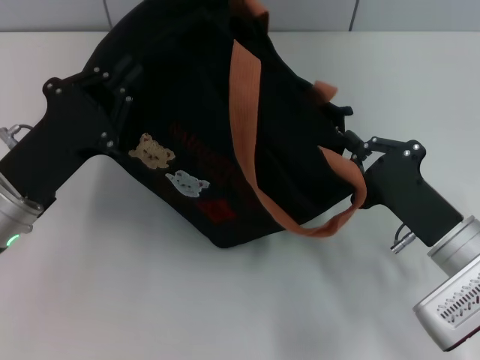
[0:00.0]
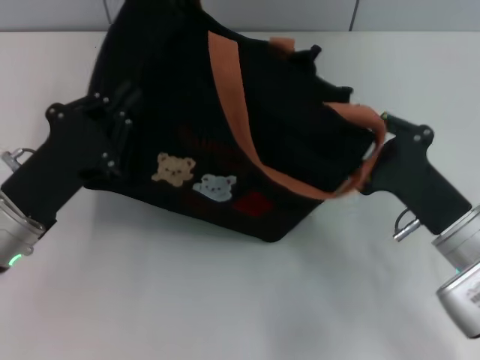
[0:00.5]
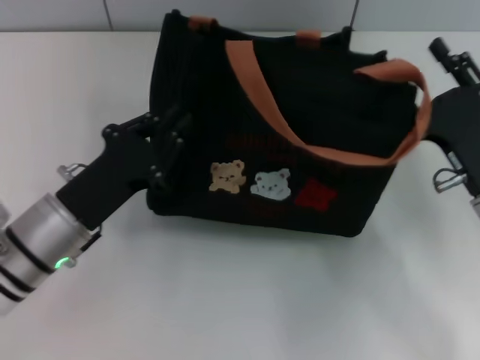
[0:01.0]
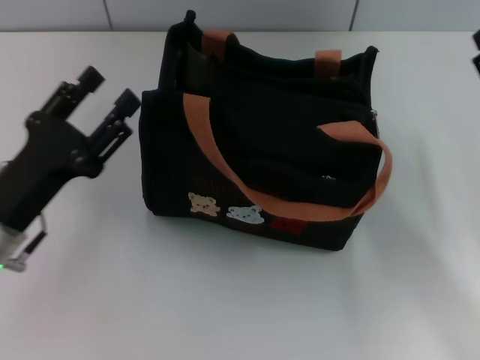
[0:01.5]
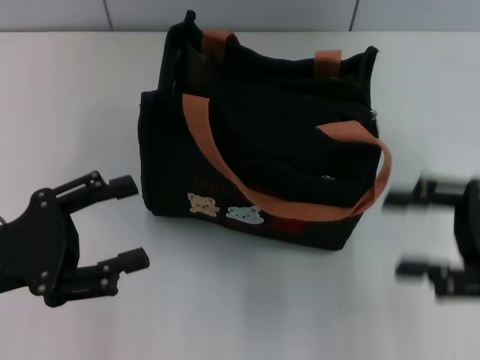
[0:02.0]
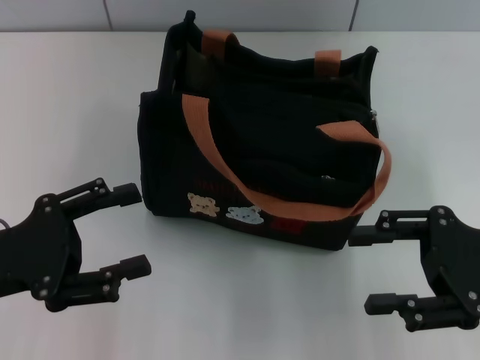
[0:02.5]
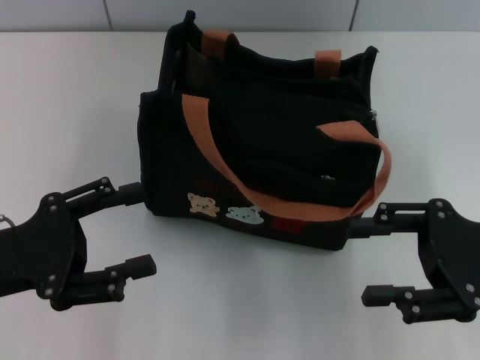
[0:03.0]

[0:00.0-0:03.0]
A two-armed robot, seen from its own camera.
0:00.0 to 0:01.5: The left gripper opens up. The right gripper heads to the right, covering about 5 cm, and opens up.
0:01.5 to 0:03.0: The left gripper ends up approximately 5 cm from where it was, and opens up. Meanwhile the right gripper shifts some 5 cm upward.

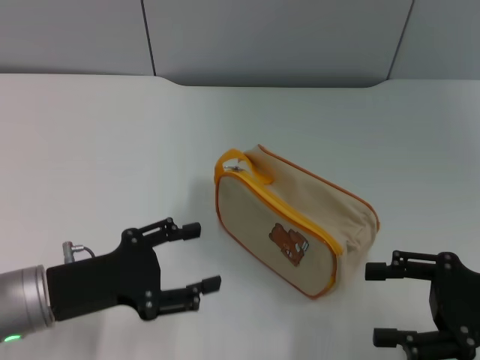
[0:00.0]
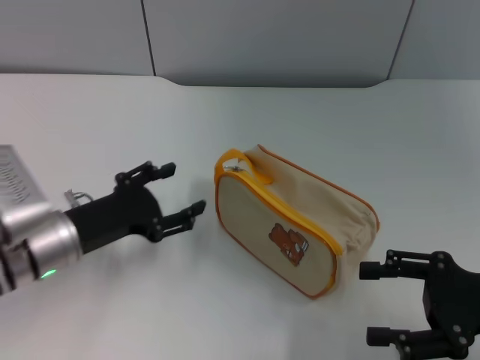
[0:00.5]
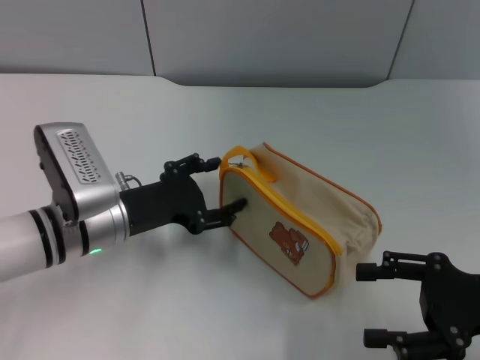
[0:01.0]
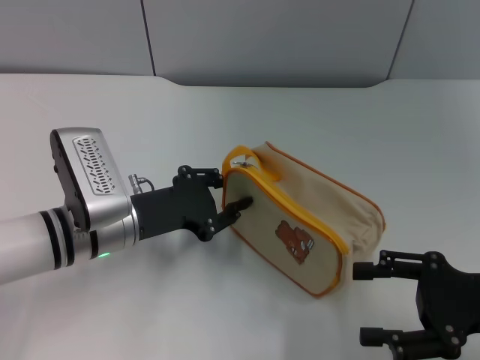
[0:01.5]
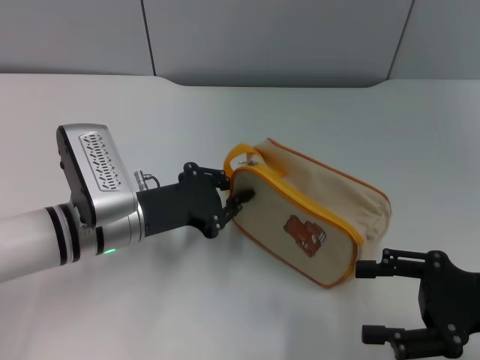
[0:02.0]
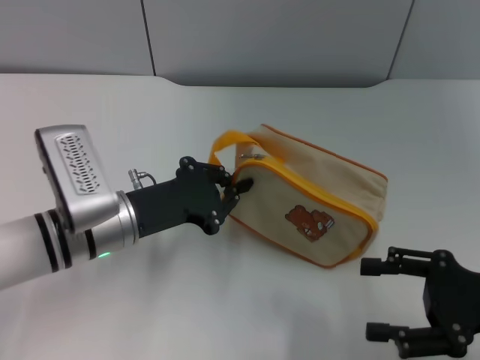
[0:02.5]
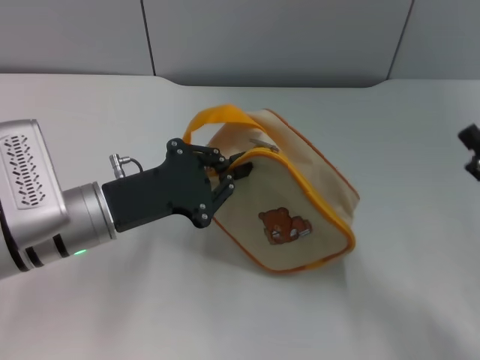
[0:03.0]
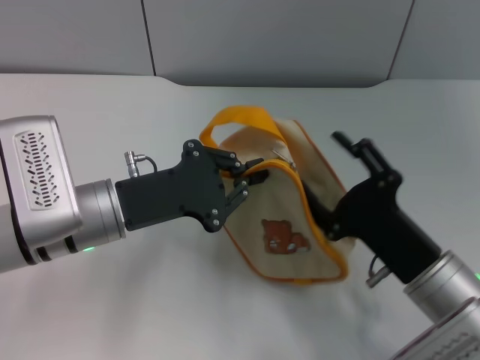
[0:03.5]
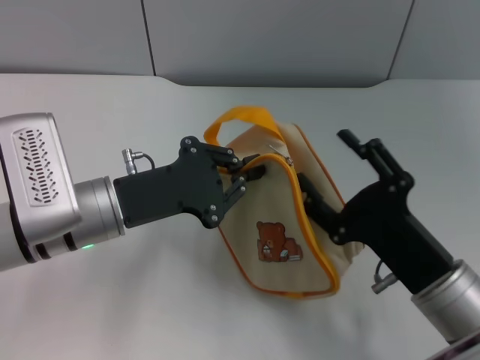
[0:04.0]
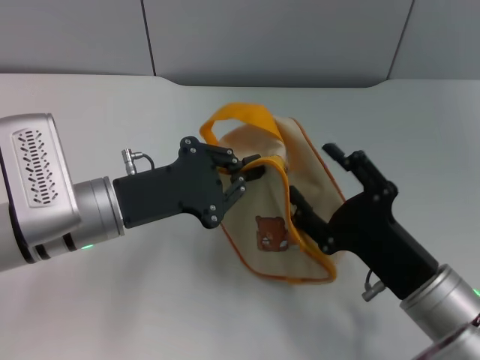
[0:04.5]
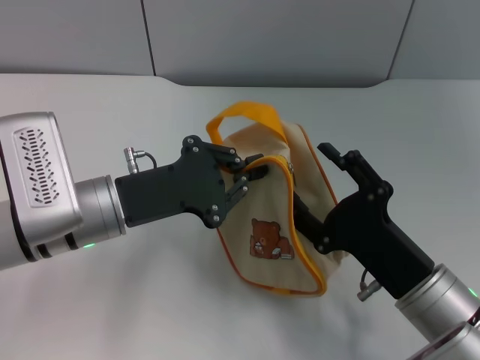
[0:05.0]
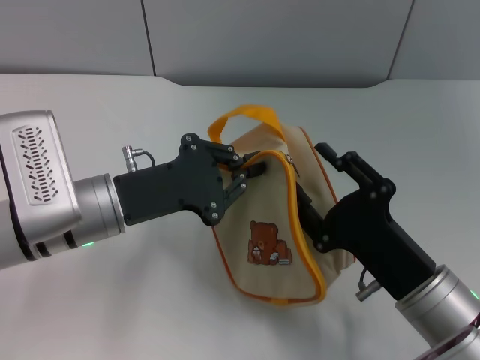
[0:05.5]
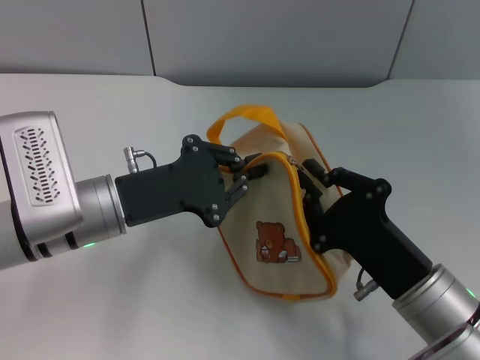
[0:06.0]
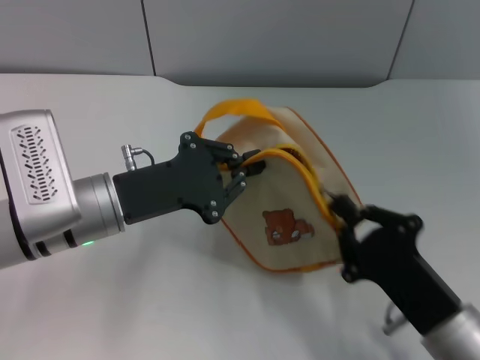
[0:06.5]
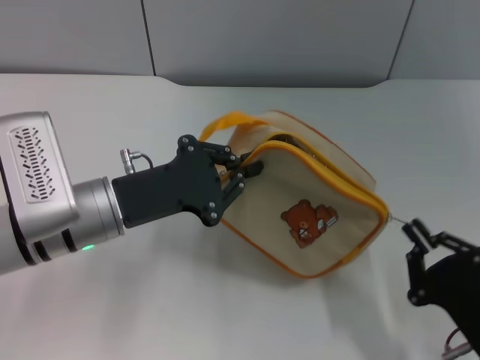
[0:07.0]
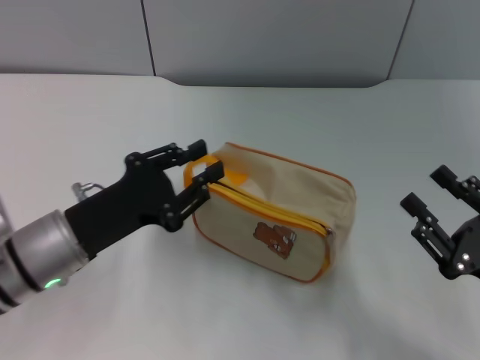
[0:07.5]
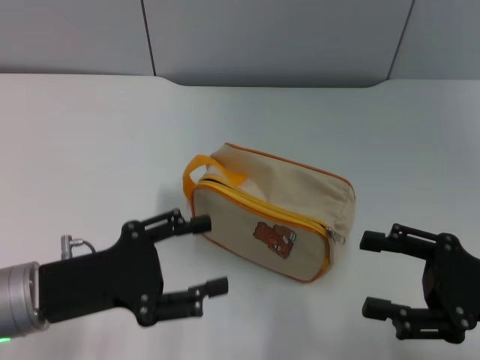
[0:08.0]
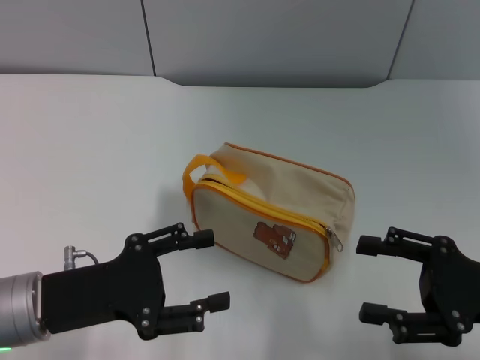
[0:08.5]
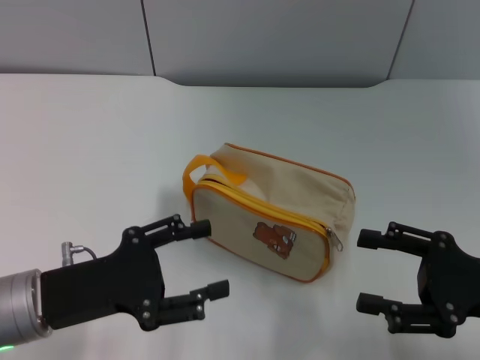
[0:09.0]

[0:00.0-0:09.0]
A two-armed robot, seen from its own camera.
Step, 0:00.0 to 0:02.5: Pick up the bag with left gripper.
Step, 0:03.0 to 0:07.0: Unzip the zipper of bag with right gripper.
0:00.0 to 0:02.0: The left gripper heads forward and to the right, covering approximately 10 cm, and closes its fingers.
0:02.0 to 0:04.5: The right gripper heads to the left and downward, covering some 10 cm.
0:04.5 to 0:07.0: The right gripper heads backward and to the right, covering approximately 10 cm, and closes up.
0:07.0 to 0:09.0: The right gripper travels forward and upward by about 10 cm, and opens its fingers; the left gripper travels backward and to the left by approximately 10 cm, and opens.
